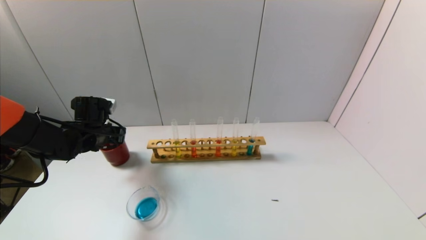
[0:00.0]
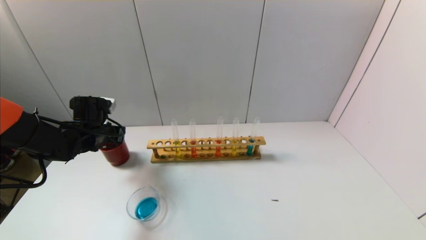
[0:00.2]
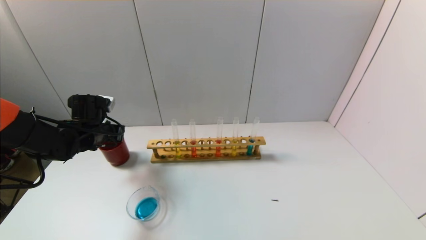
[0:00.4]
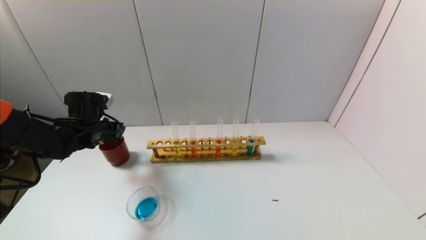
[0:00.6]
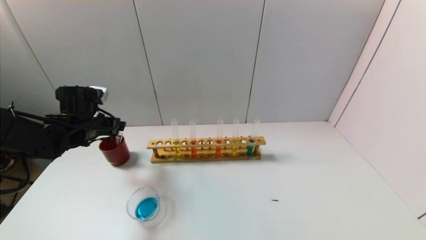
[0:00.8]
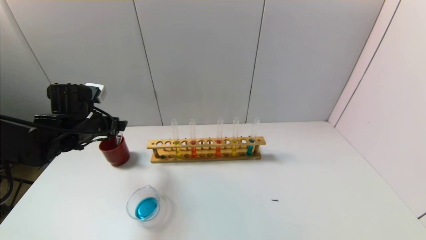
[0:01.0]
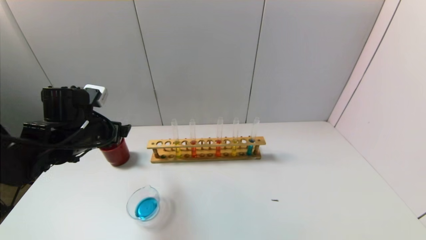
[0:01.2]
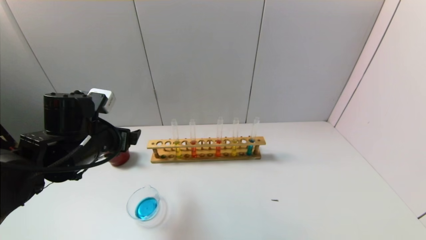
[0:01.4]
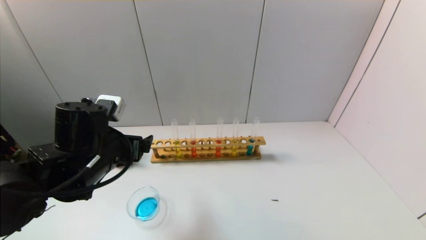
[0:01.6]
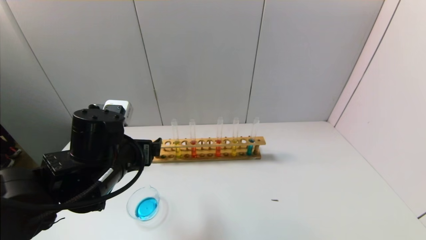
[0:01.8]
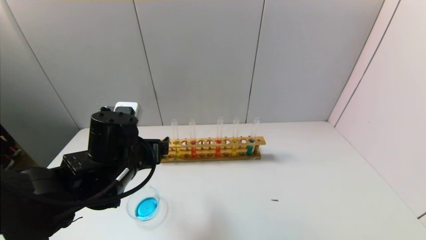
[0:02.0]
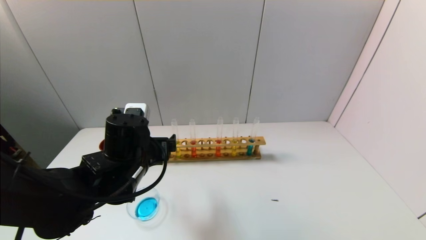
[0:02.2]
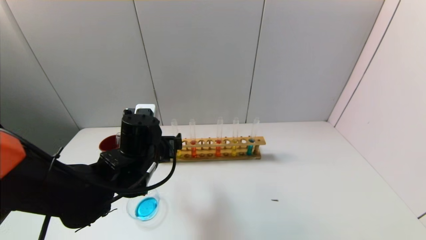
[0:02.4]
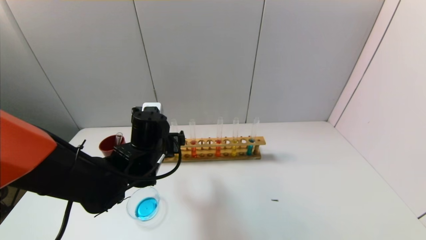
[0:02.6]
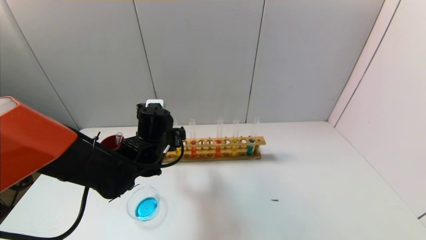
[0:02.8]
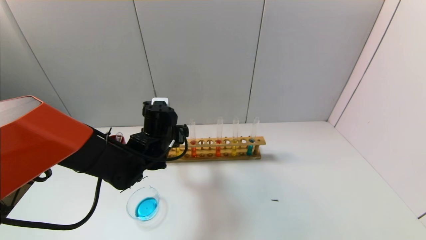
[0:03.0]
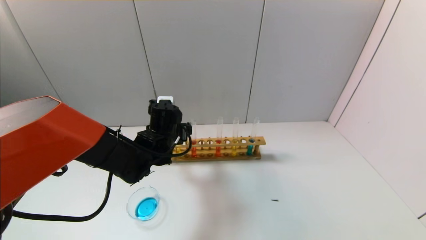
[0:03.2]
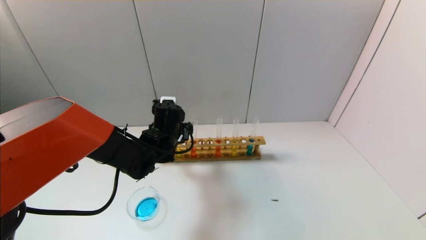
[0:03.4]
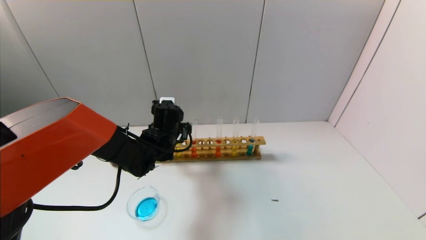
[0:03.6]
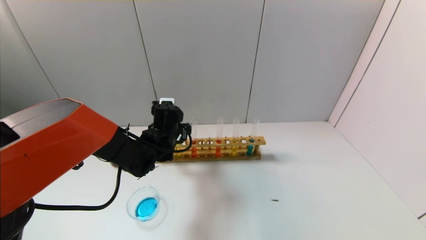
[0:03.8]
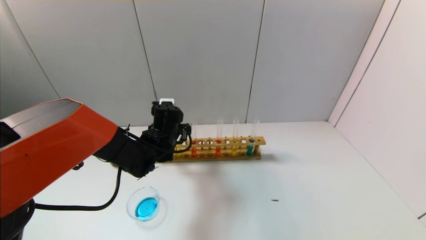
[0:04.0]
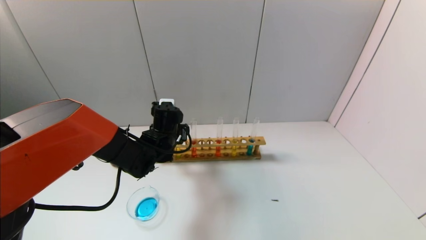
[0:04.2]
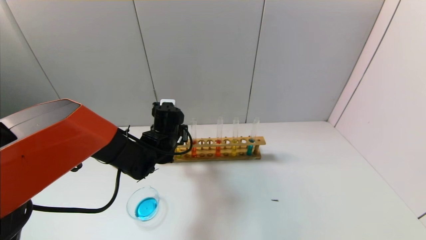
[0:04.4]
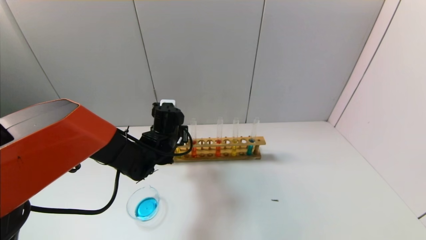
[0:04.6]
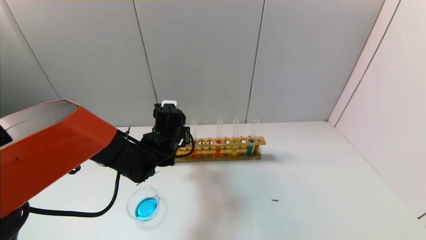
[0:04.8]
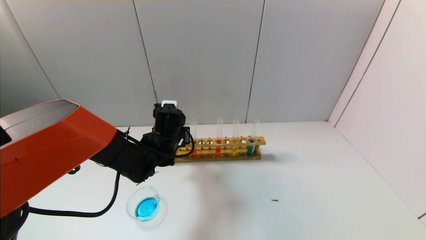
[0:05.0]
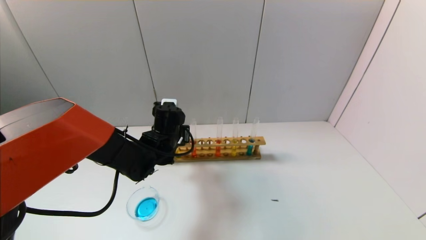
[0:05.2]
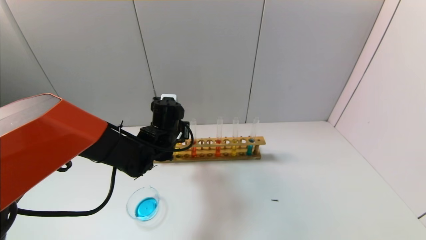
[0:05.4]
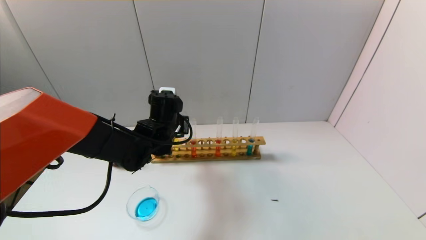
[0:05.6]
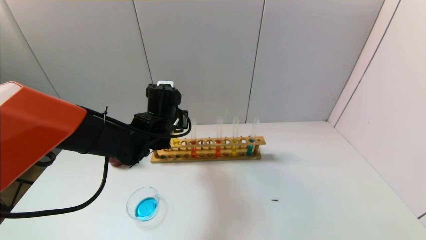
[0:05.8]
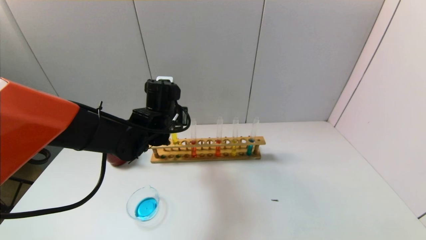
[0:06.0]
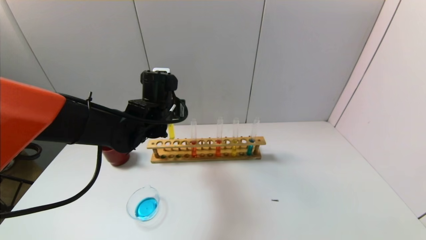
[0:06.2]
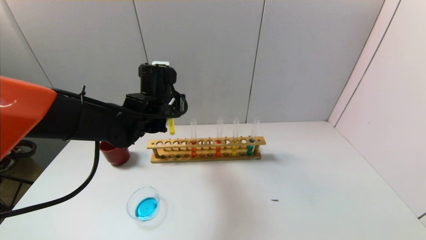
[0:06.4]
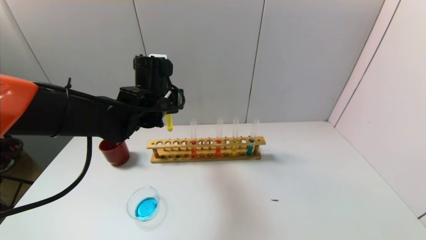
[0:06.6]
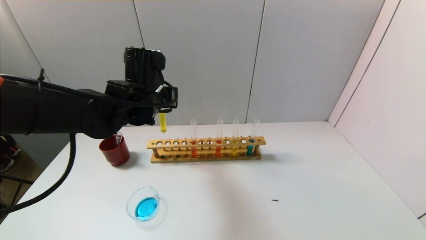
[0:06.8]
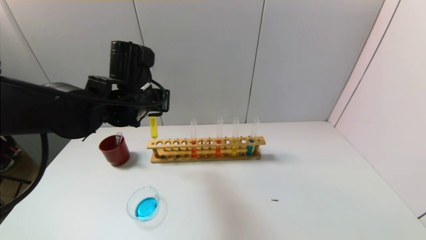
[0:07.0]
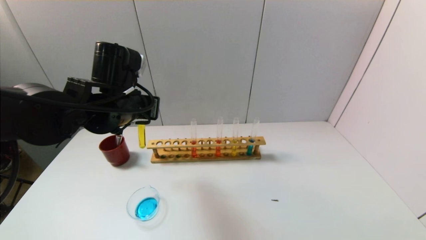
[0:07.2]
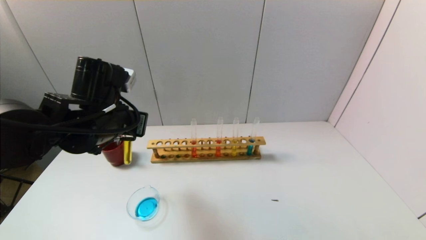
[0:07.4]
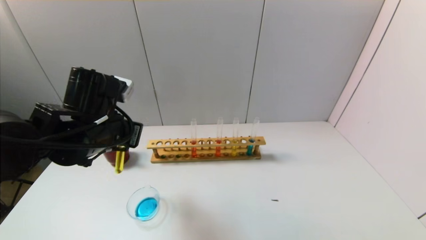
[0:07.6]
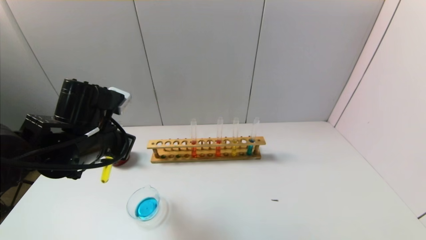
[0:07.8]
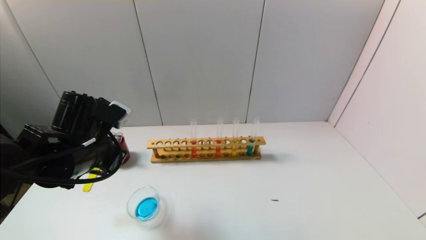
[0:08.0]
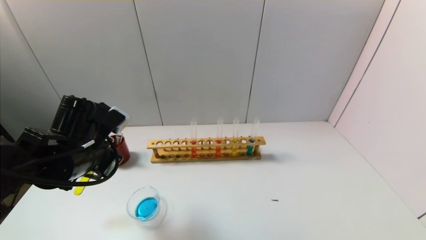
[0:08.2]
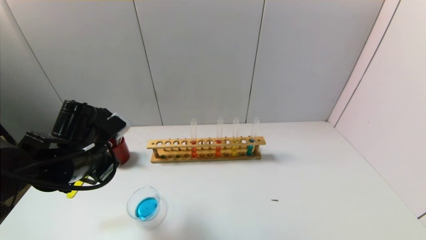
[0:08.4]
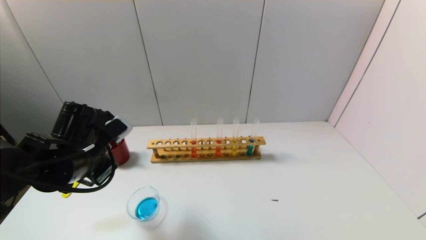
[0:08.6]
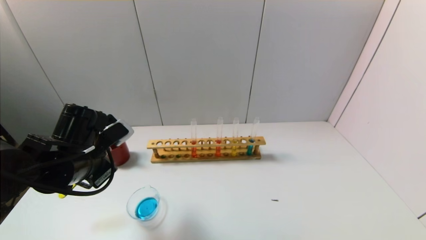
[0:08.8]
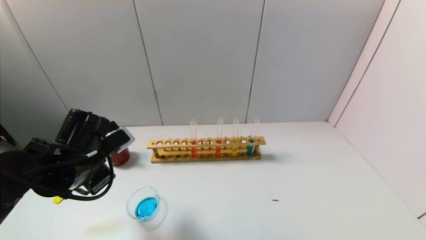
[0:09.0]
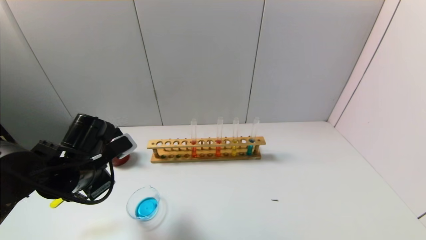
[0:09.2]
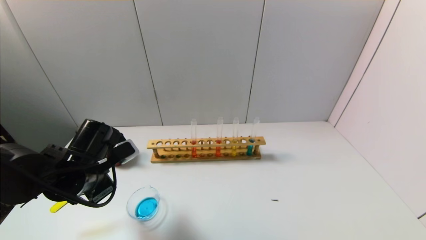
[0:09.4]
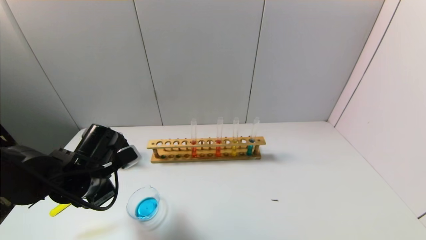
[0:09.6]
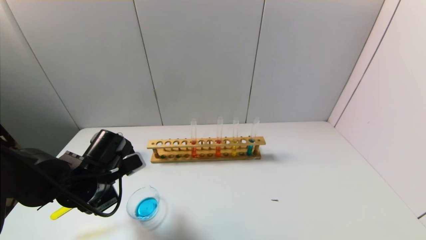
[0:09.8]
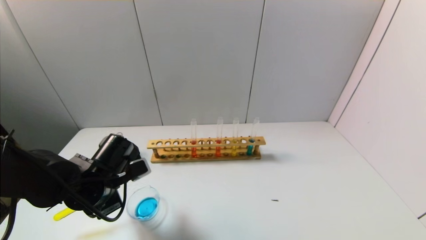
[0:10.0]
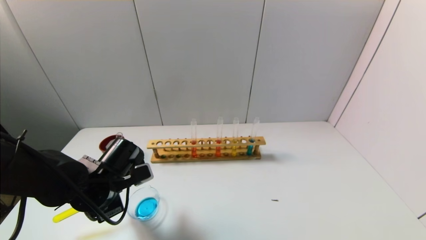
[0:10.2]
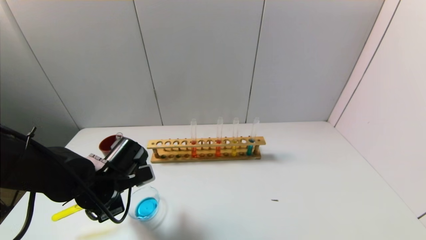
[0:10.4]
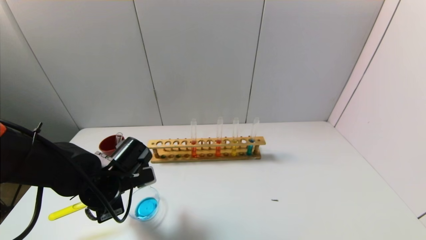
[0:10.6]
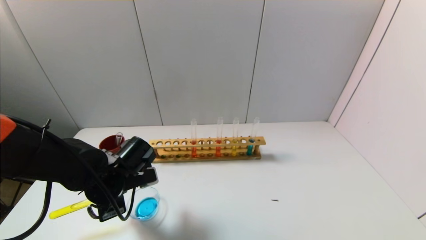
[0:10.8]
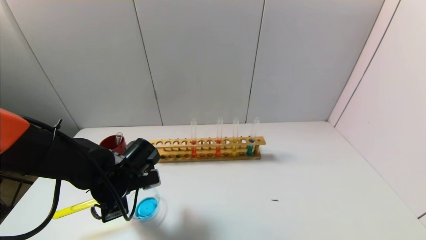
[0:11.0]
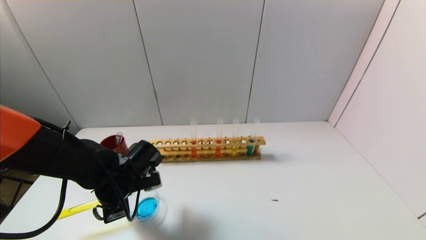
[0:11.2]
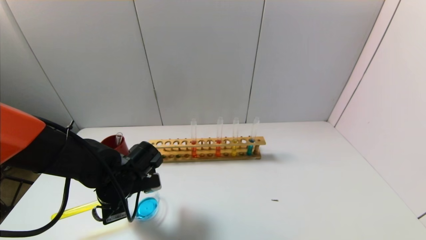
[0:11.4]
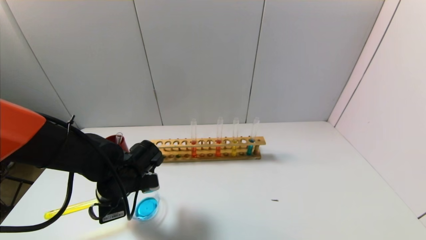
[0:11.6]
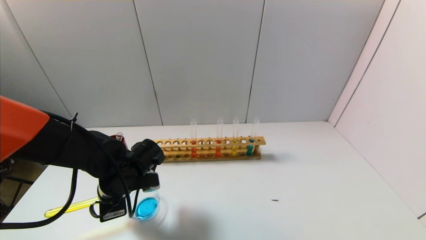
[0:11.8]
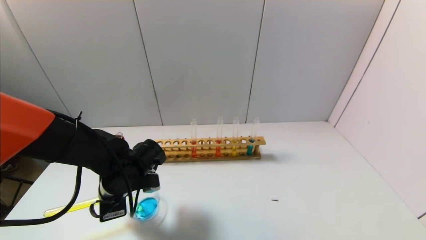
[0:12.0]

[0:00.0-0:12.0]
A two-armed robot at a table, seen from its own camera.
Task of the whole recording: pick up the test tube with yellow pigment and the test tube with blue pigment by grippers and pour them into the beaker.
Step, 0:00.8 to 0:05.0: Grasp the yellow reagent with the left gripper.
0:00.0 to 0:01.6: The left gripper heads backward, to the right and upward, covering about 20 cm, and opens.
0:01.6 to 0:03.0: The left gripper goes about 15 cm forward, to the right and downward.
0:03.0 to 0:04.4: The left gripper closes its fingers.
0:04.4 to 0:06.0: The left gripper goes roughly 5 cm upward, and closes up.
0:06.0 to 0:07.6: The left gripper travels backward and to the left by about 15 cm.
0:07.6 to 0:09.0: The left gripper goes roughly 5 cm downward.
0:09.0 to 0:10.4: The left gripper is displaced downward by some 5 cm.
0:10.4 to 0:12.0: The grippers move only a little.

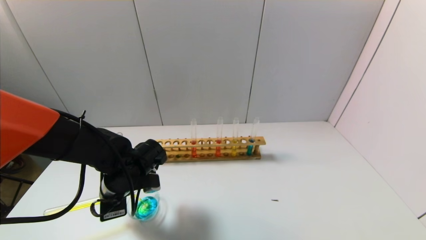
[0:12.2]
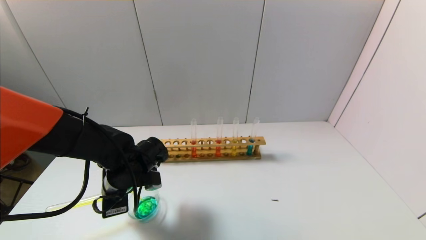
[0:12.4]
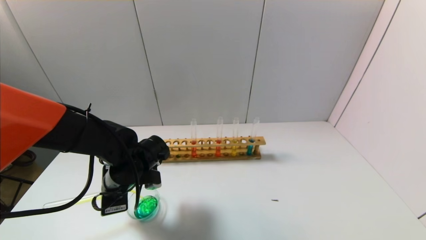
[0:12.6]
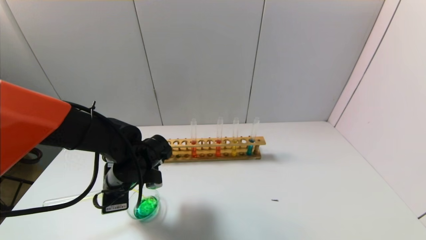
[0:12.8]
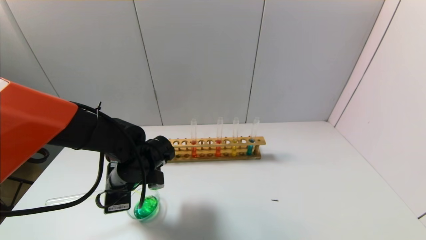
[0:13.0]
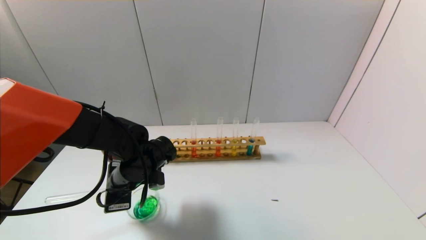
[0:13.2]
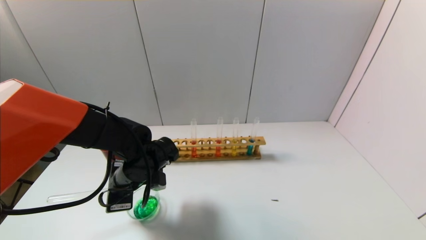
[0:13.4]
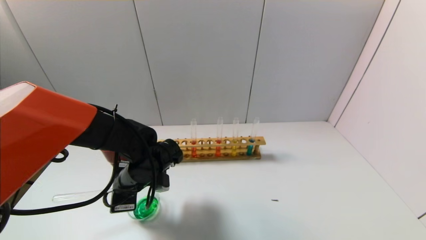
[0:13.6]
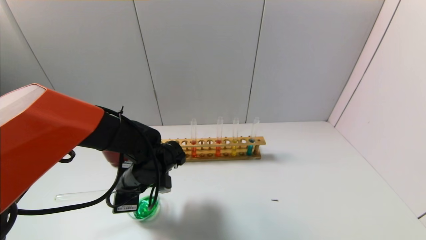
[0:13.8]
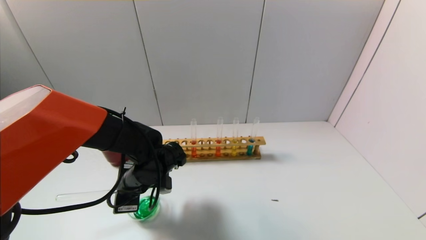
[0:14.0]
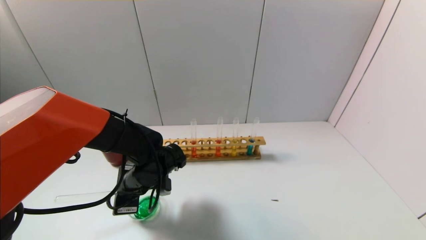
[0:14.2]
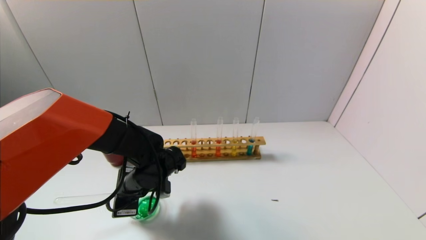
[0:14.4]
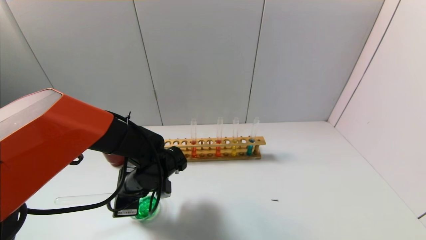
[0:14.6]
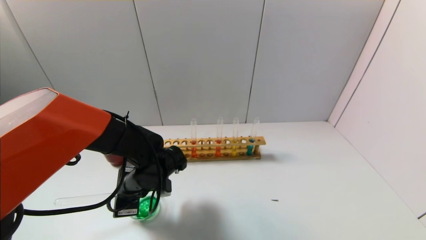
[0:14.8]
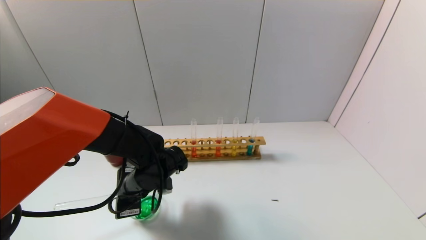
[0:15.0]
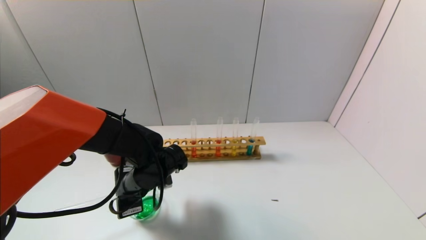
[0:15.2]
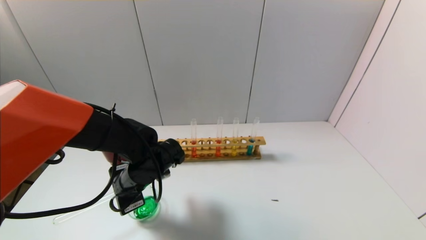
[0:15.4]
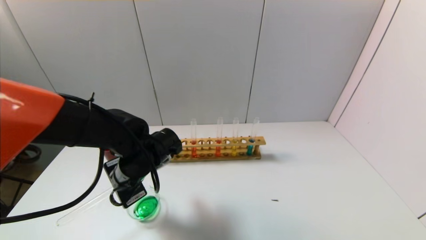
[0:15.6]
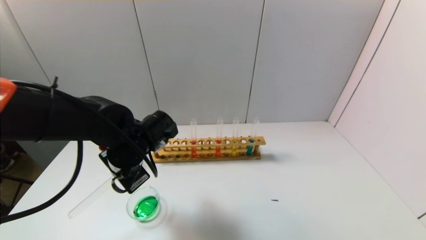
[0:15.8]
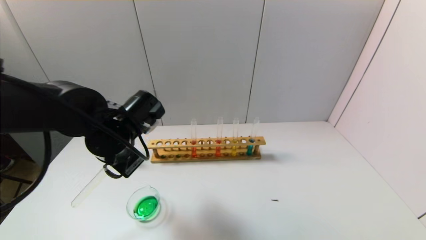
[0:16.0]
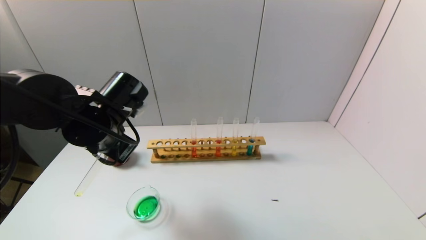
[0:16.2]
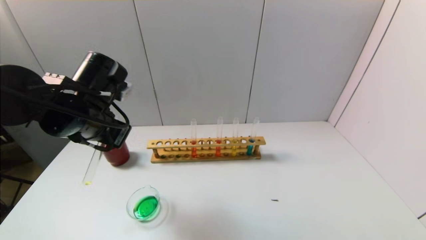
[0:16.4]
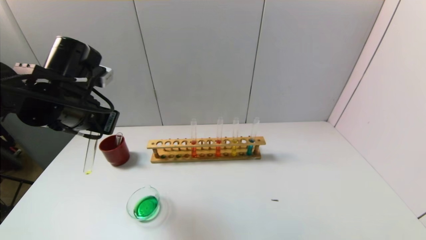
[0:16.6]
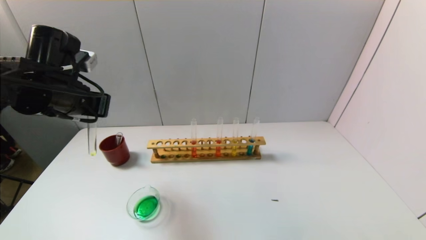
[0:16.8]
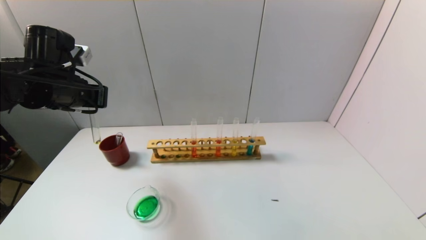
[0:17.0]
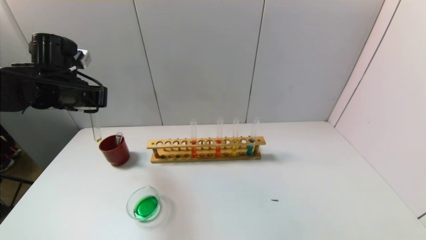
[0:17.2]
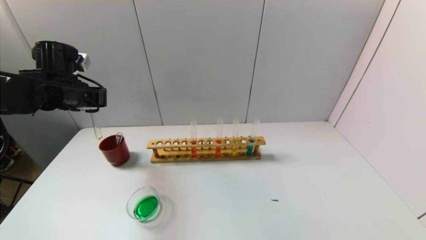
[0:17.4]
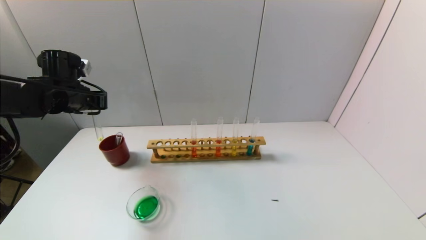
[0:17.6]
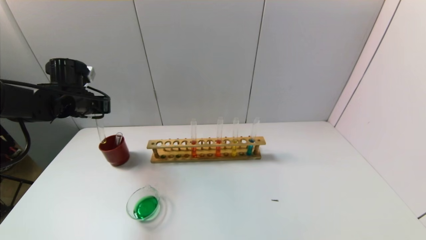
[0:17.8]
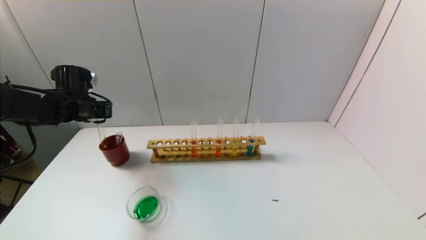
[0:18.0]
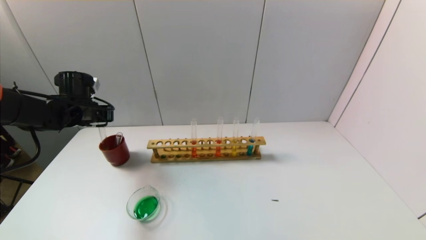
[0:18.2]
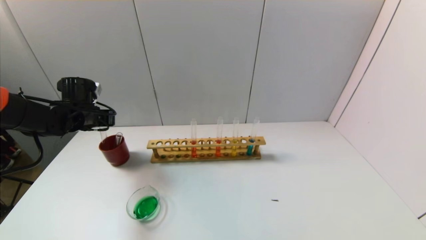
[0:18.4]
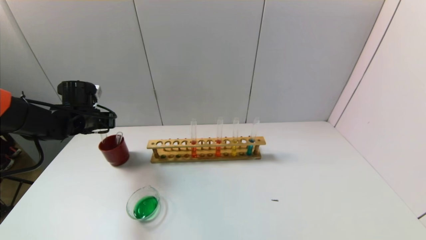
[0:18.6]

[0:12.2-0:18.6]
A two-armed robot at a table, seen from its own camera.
Task of the whole recording: pick up the test tube with yellow pigment and the test tube with blue pigment by grippers and pour them into the beaker.
Step, 0:12.2 to 0:15.4: Pour the yellow reagent into the graduated cylinder with the left gripper.
0:12.2 to 0:13.8: The grippers make only small movements.
0:15.4 to 0:17.0: The left gripper heads upward and to the left, covering roughly 20 cm.
0:17.0 to 0:18.6: The left gripper goes approximately 15 cm downward, forward and to the left.
